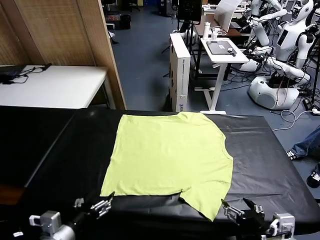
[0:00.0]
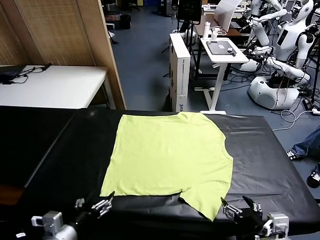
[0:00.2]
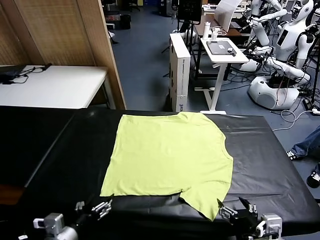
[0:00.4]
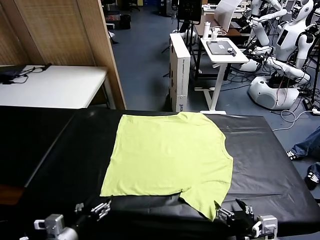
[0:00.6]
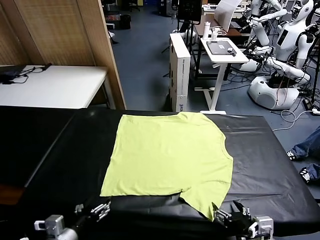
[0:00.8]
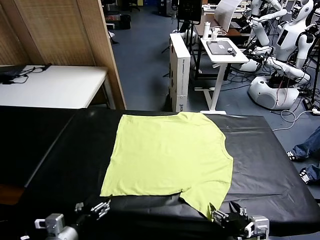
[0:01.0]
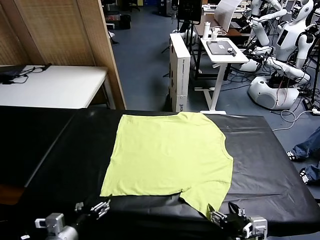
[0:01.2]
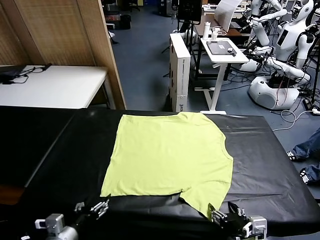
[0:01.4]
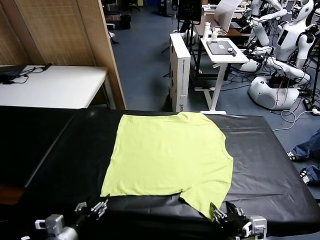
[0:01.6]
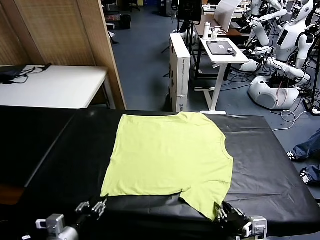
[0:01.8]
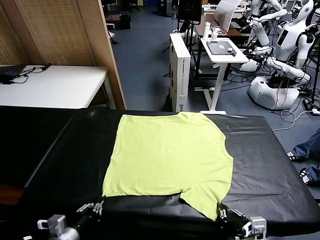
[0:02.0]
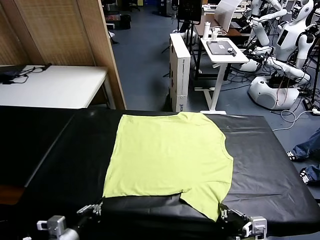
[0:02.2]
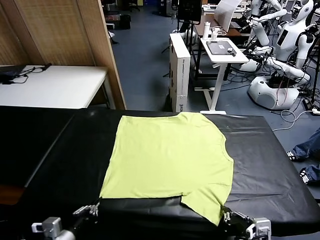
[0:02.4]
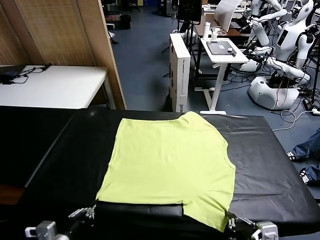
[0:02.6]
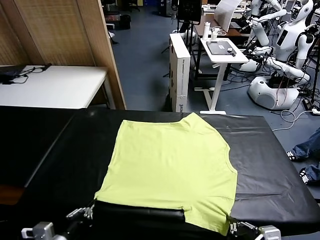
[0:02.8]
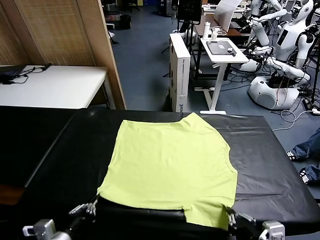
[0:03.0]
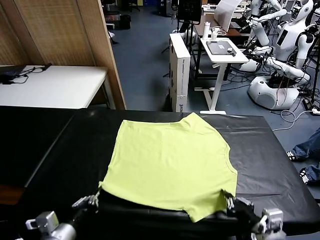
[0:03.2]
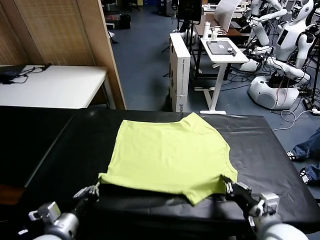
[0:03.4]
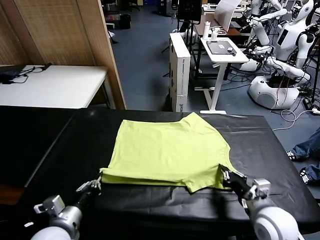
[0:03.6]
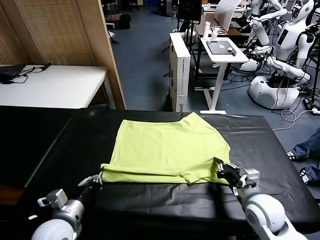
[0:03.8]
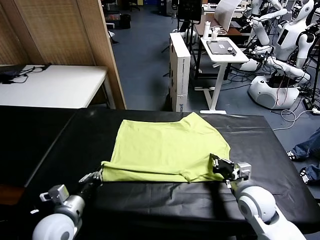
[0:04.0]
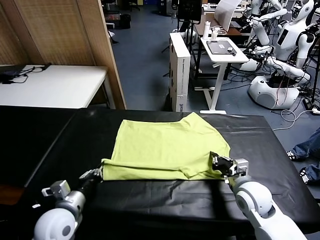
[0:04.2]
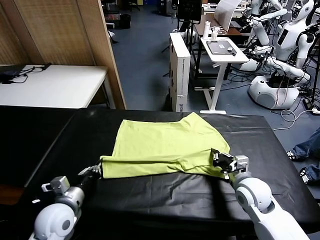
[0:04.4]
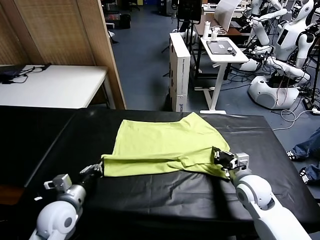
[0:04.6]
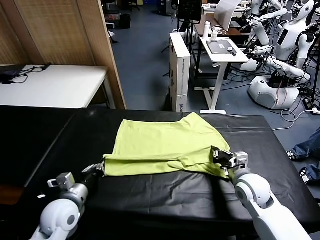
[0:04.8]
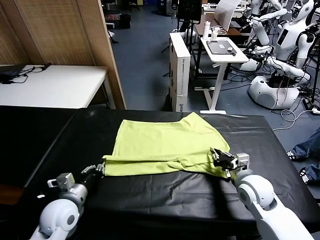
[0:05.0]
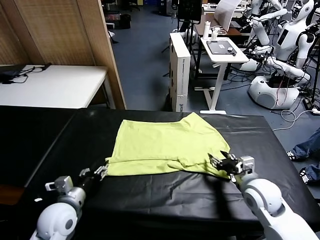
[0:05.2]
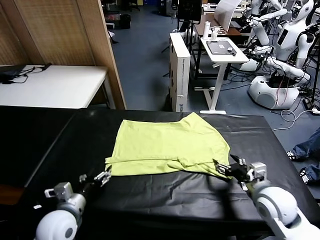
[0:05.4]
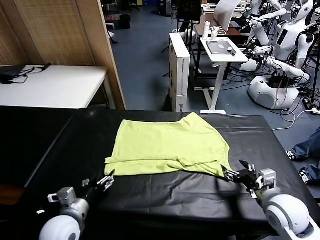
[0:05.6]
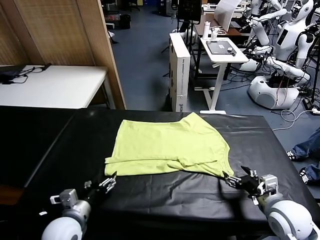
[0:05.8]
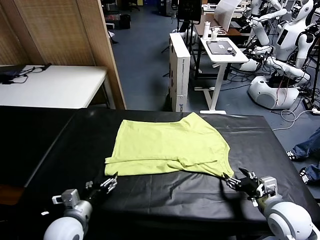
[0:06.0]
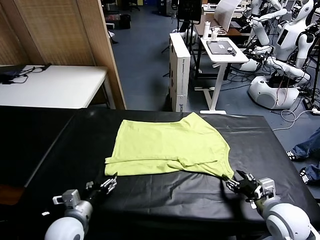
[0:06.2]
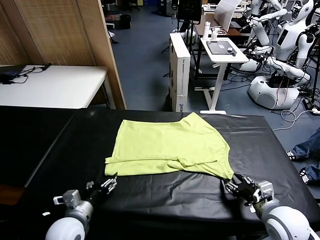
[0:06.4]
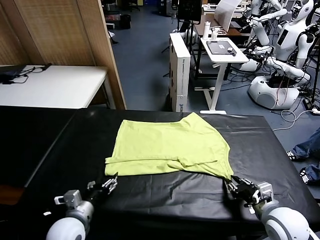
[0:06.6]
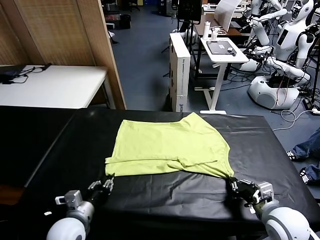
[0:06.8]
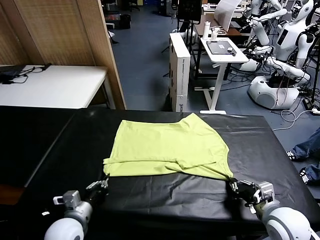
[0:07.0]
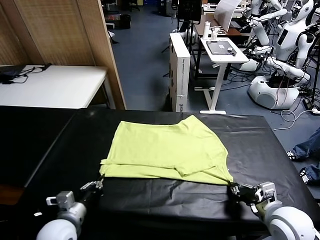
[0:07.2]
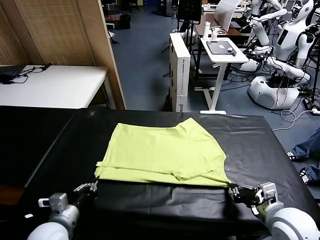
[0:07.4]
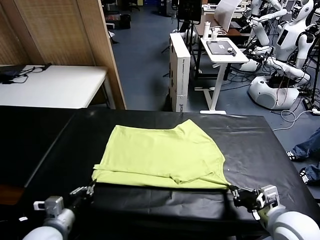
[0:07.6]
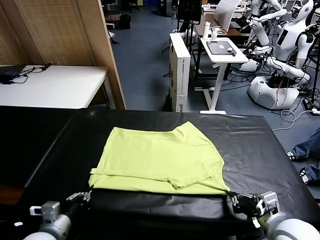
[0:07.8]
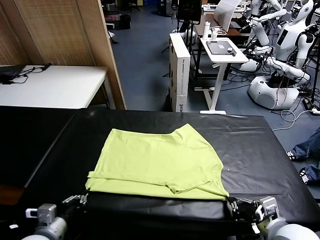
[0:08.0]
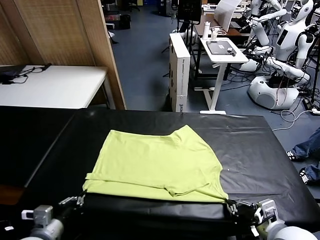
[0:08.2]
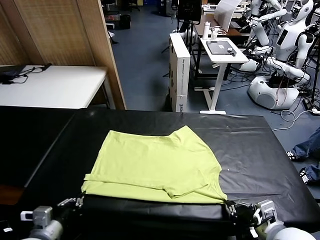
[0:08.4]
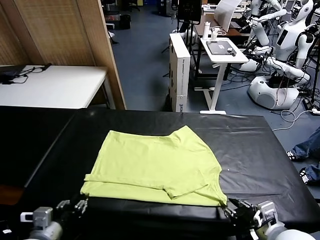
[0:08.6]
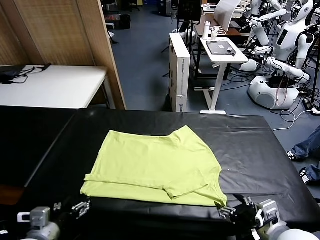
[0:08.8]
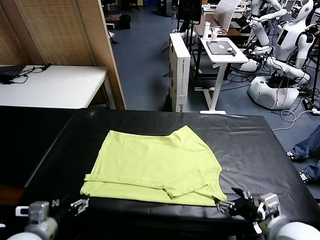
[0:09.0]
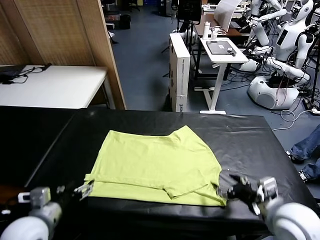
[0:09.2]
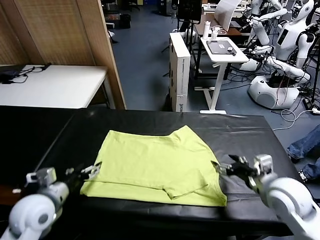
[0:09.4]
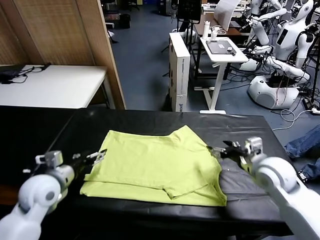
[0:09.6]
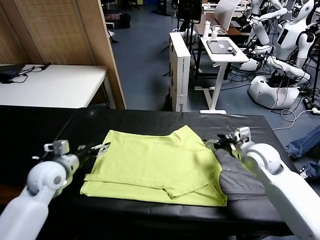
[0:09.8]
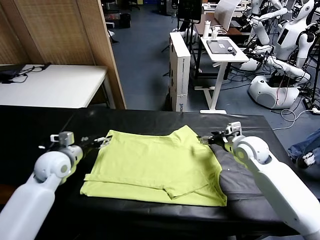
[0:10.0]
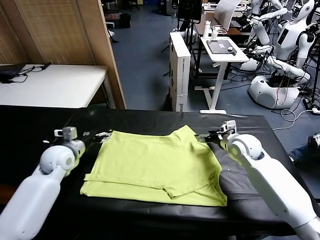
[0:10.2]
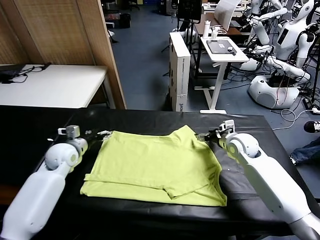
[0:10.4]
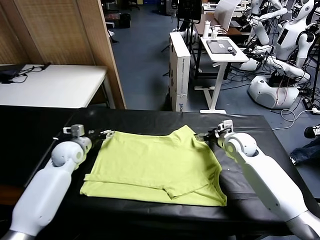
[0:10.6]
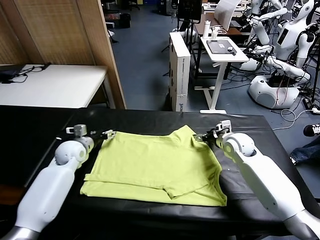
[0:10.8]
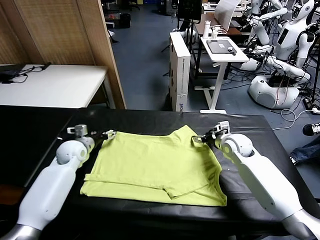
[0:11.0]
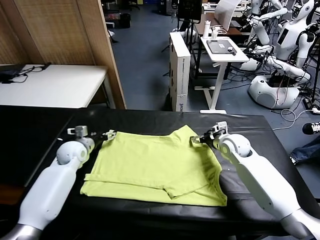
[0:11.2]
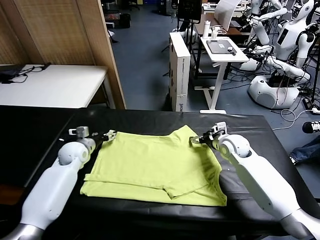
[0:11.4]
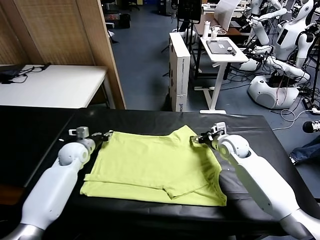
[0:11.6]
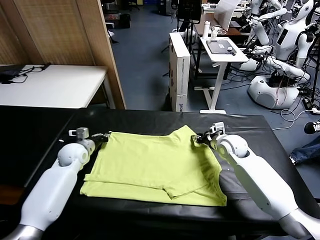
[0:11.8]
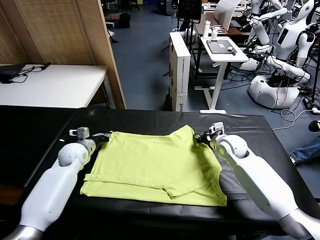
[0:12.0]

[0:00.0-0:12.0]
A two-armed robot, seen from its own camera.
Task of the whole recording: fold and organize the clothes.
Step, 0:00.0 to 0:02.4: use both grippers simultaneously to clamp the lower edge of the clothing fabric.
Step, 0:02.6 to 0:05.2: use both grippers to drag the lower edge of the fabric forward and fold it over the upper edge.
Step, 0:05.4 to 0:08.6: Drag the clothes downward with both gripper.
0:01.6 to 0:03.0: The left gripper closes; the right gripper moves roughly 5 cm.
0:03.0 to 0:04.4: The right gripper is displaced forward by some 20 cm. Meanwhile the left gripper shifts about 10 cm forward.
0:04.4 to 0:06.0: The right gripper shifts about 10 cm backward and to the right, and opens up. Meanwhile the left gripper opens.
0:06.0 to 0:07.6: The right gripper shifts roughly 5 cm backward, and closes up; the left gripper shifts by approximately 5 cm, and closes up.
0:07.6 to 0:09.0: The right gripper opens its fingers. The left gripper opens its fingers.
0:09.0 to 0:10.4: Both grippers travel together forward, approximately 30 cm.
0:10.4 to 0:12.0: The right gripper closes its fingers; the left gripper changes place by roughly 5 cm, and closes up.

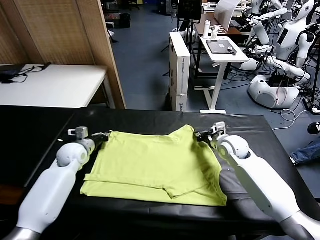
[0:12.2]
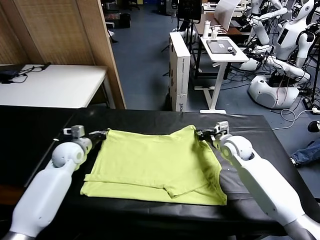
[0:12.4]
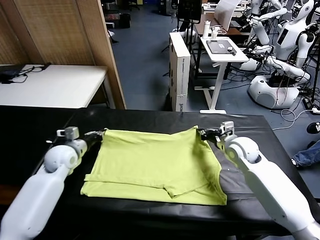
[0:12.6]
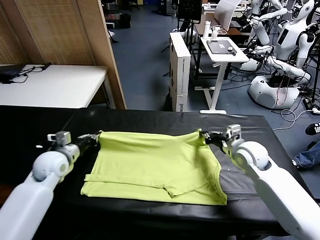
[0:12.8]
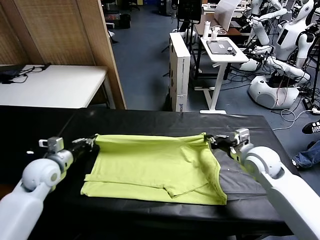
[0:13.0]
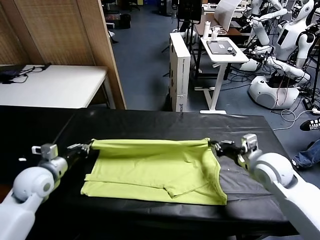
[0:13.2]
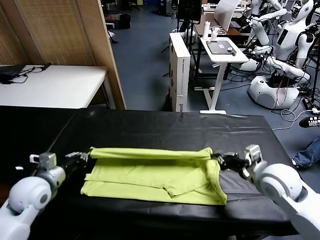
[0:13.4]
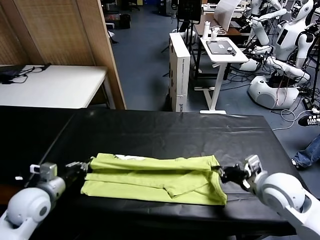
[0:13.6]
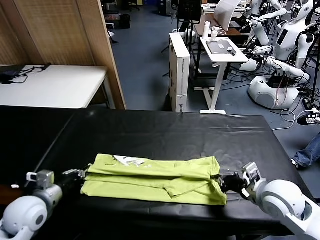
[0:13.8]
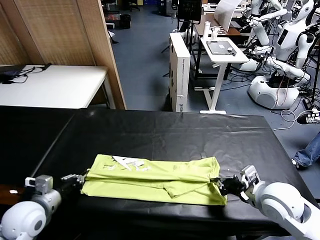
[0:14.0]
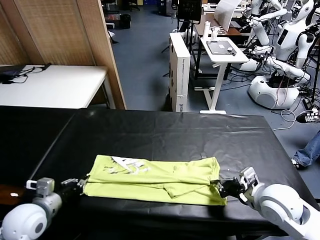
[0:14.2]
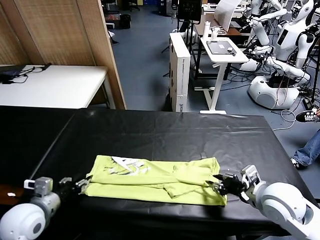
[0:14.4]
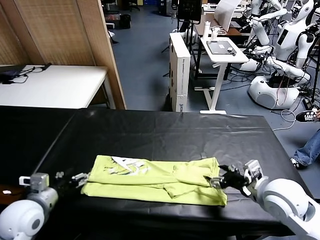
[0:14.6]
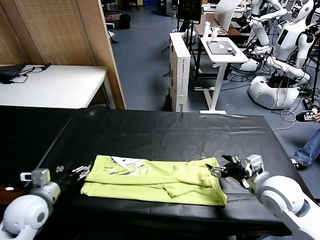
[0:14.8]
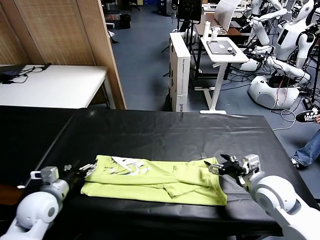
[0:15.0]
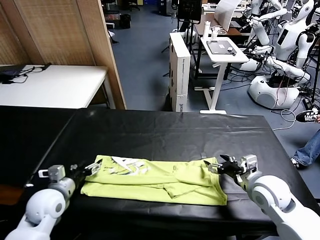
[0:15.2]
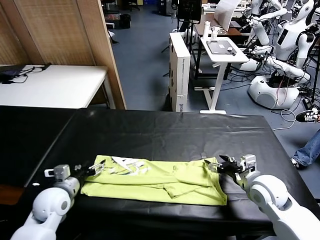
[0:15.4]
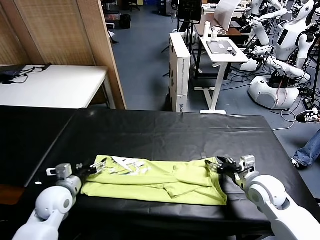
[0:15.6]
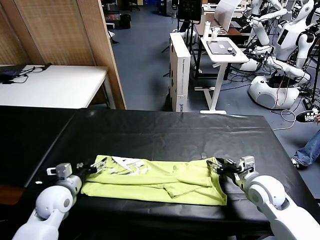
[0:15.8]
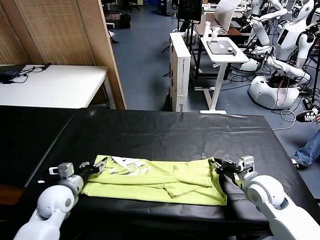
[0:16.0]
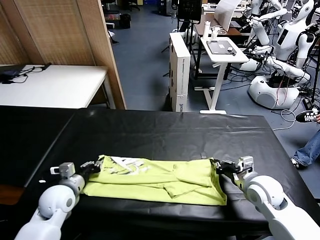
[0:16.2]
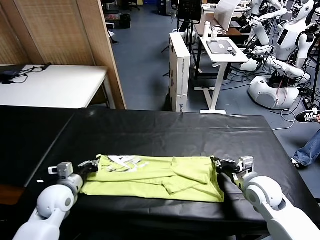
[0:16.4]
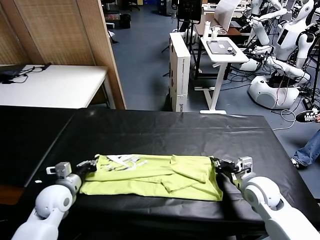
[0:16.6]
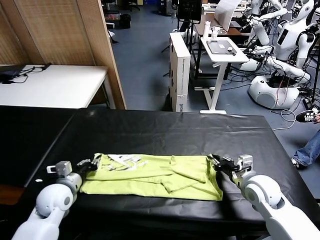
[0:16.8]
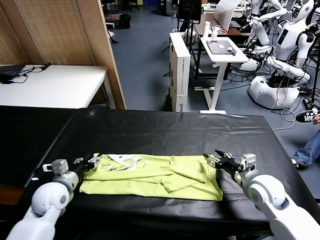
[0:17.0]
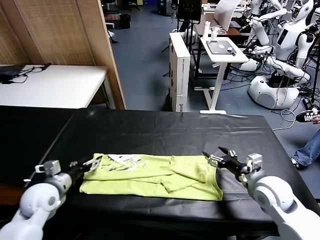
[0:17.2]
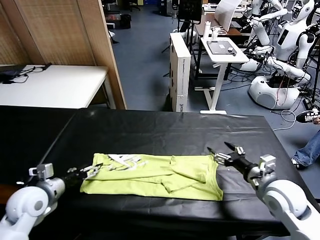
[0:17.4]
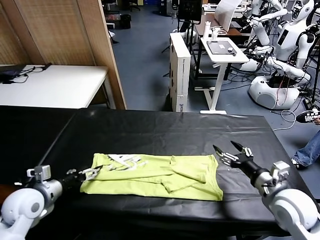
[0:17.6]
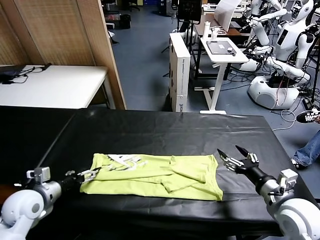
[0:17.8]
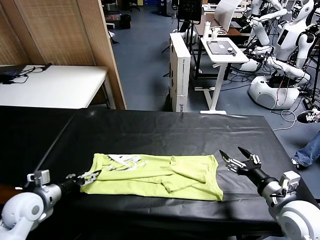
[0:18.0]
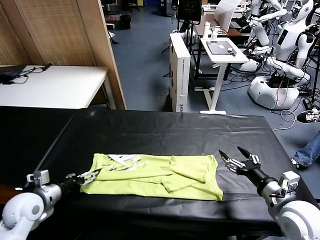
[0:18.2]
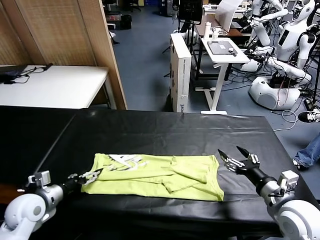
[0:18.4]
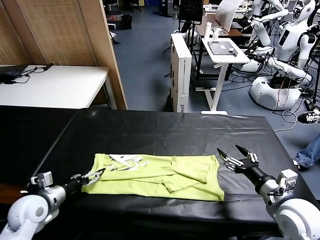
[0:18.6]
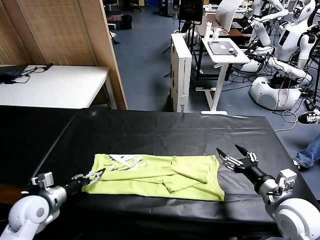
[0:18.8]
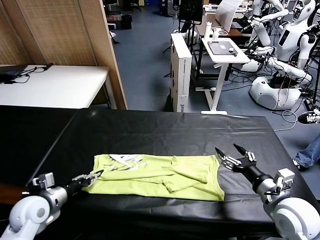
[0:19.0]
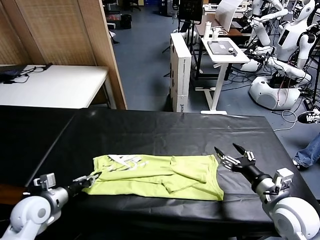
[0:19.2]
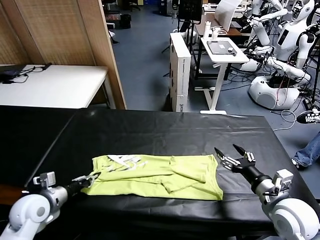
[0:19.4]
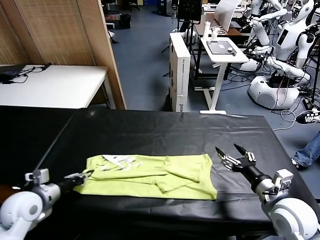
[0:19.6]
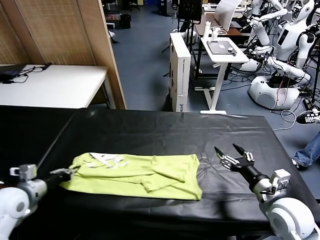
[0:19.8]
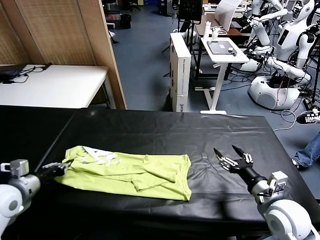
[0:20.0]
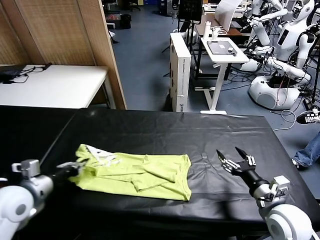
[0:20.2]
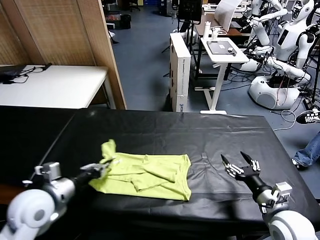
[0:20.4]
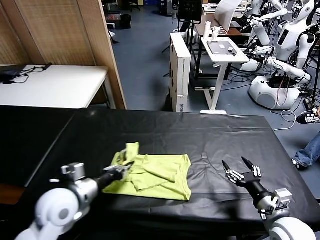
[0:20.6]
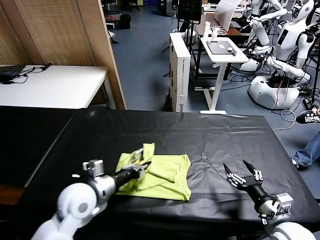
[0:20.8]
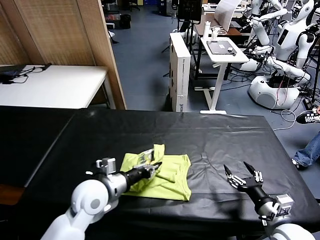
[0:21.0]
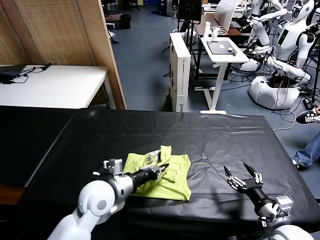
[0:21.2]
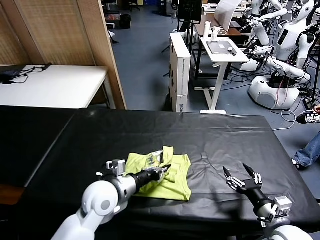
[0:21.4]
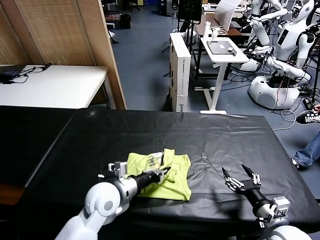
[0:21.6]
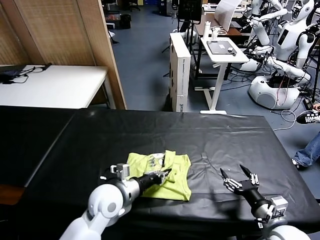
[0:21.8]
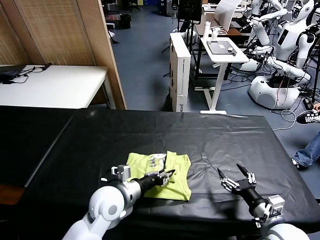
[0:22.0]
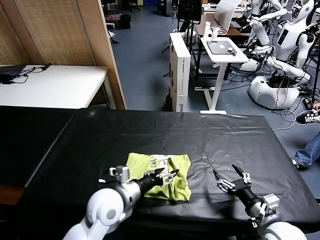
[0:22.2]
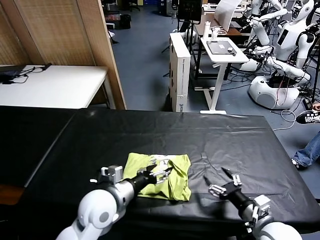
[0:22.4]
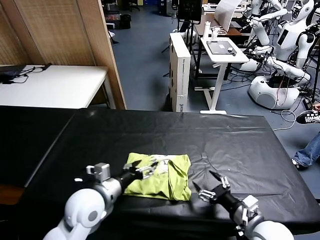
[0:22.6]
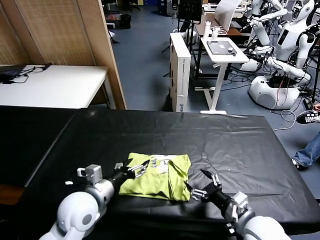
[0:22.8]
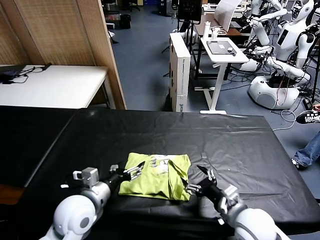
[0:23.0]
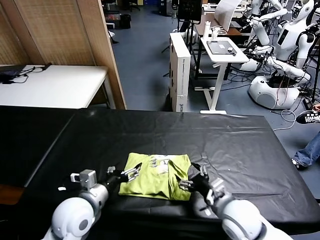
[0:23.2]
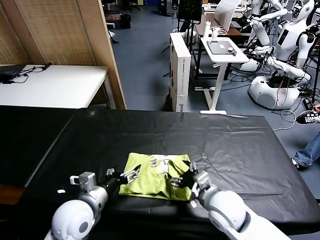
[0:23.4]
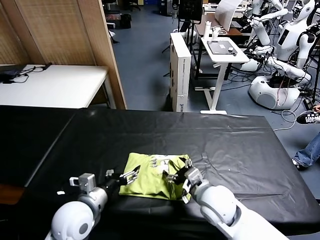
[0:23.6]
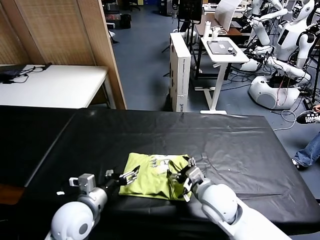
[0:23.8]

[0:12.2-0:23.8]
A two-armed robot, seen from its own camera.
Task of the whole recording: fold and organize the clothes.
Step, 0:12.2 to 0:14.4: use both grippers to drag the upper edge of the fabric backward and fold it over the lower edge.
Step, 0:14.6 to 0:19.2: use the left gripper to clamp the left edge of the fabric.
Step, 0:19.4 to 0:22.4: use the left gripper to drag the left edge of the fabric to the left and folds it over the right edge.
0:12.2 to 0:13.6: The two grippers go about 20 cm backward.
0:13.6 to 0:15.0: The left gripper opens. The right gripper opens.
0:15.0 to 0:16.6: The right gripper closes. Meanwhile the left gripper moves some 5 cm, and closes its fingers.
0:16.6 to 0:18.0: The left gripper heads to the left, covering some 5 cm, and opens, while the right gripper travels backward and upward by about 10 cm, and opens up.
0:18.0 to 0:19.4: The left gripper closes.
0:19.4 to 0:21.0: The right gripper shifts roughly 5 cm downward, while the left gripper goes about 20 cm to the right.
0:21.0 to 0:22.4: The left gripper opens up.
0:22.4 to 0:23.8: The left gripper is displaced to the left by some 5 cm. The right gripper is displaced to the left and forward by some 15 cm.
